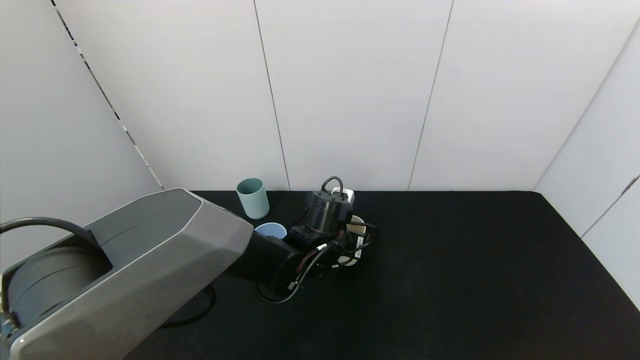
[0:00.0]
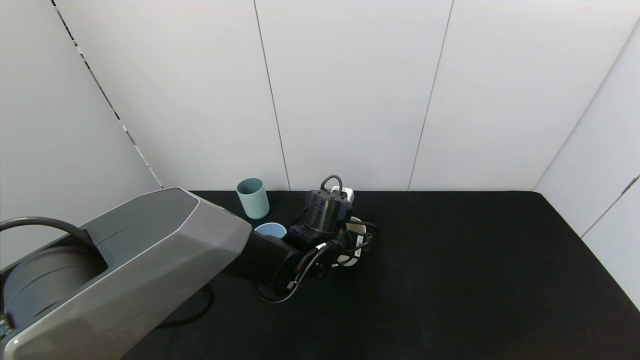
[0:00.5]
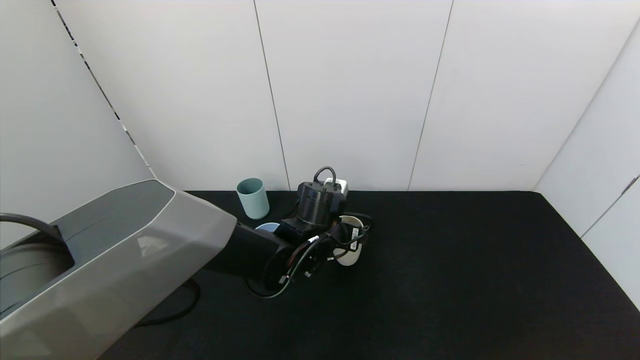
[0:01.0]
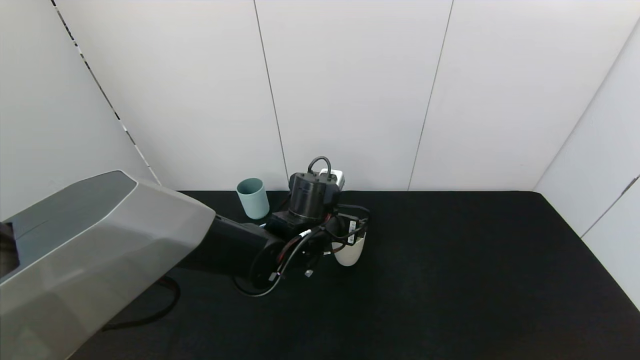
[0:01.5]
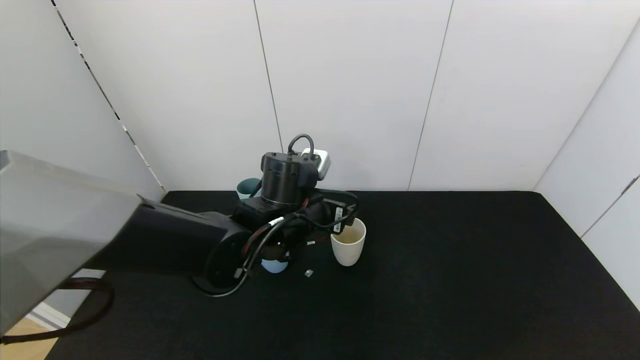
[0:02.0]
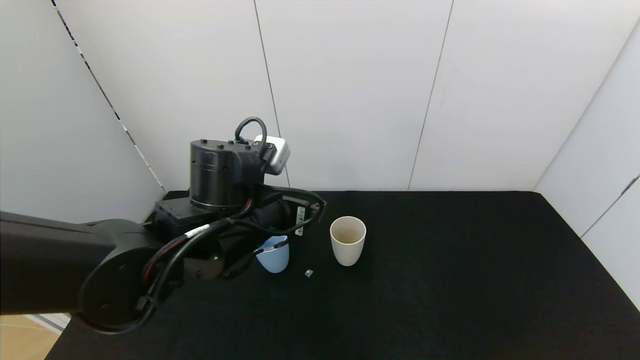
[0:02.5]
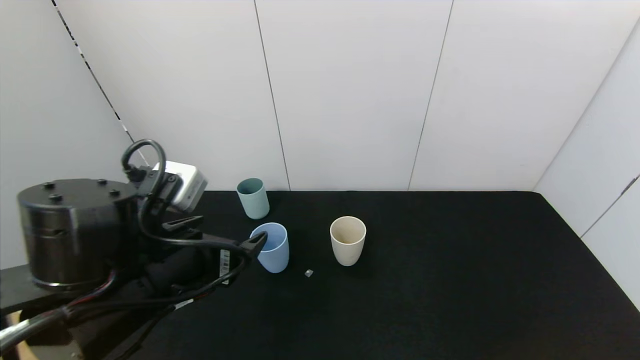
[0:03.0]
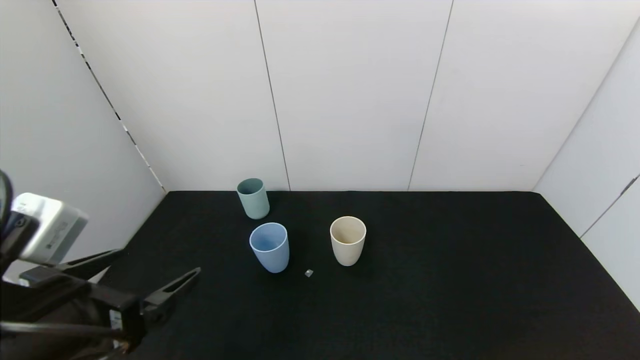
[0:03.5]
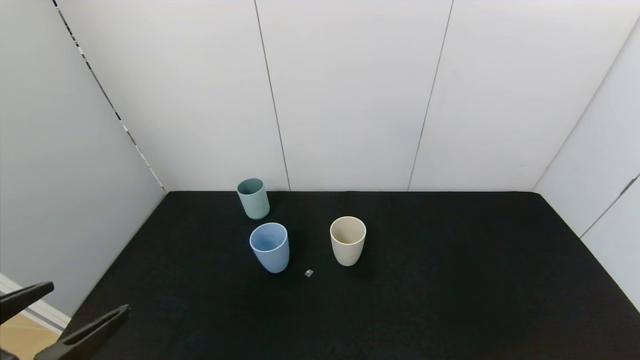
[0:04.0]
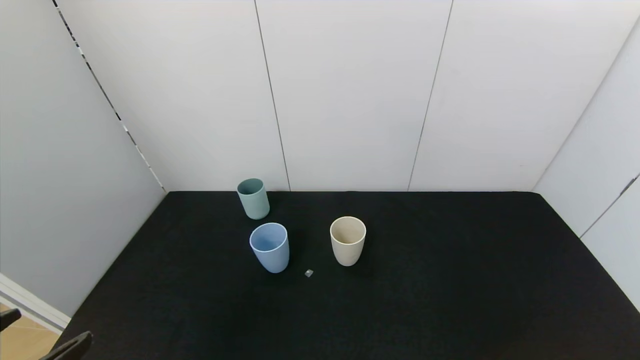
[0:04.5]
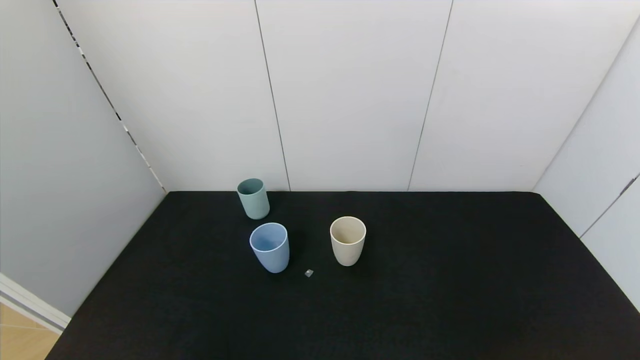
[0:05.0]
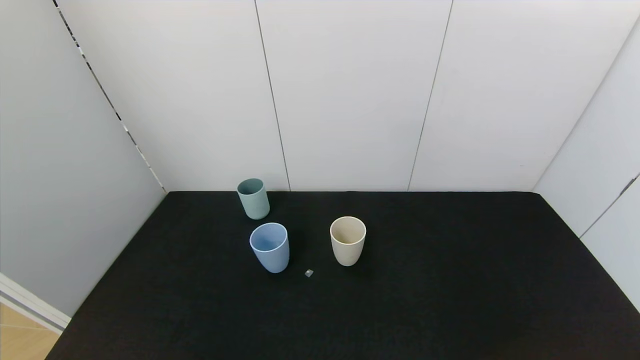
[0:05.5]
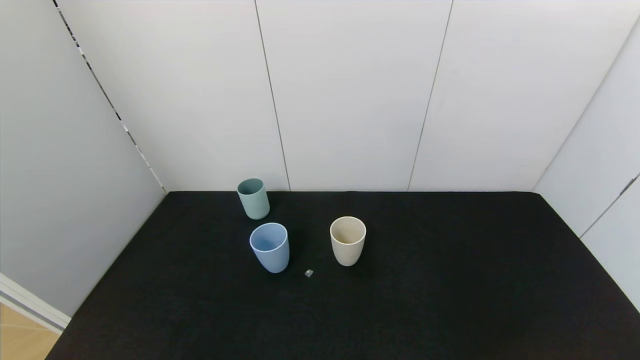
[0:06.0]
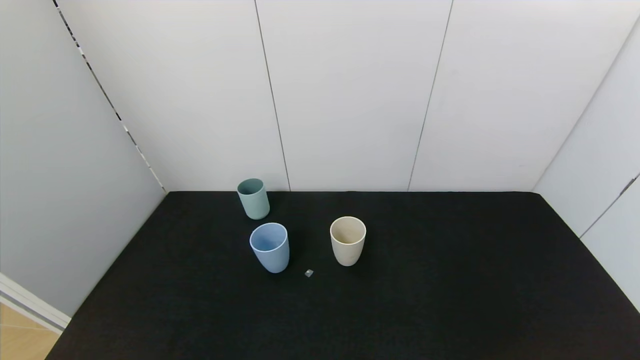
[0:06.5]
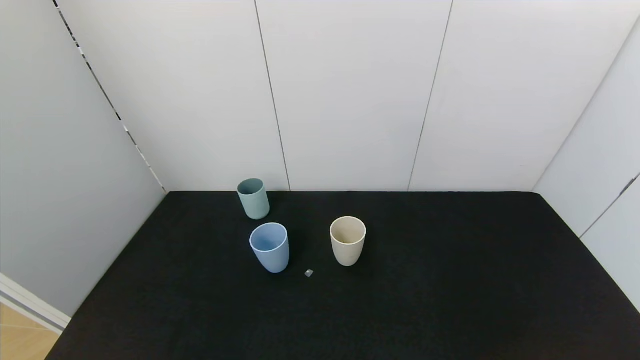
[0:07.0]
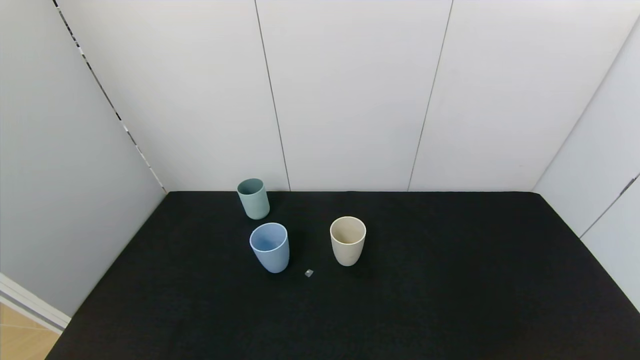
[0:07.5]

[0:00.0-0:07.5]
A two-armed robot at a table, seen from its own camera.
Task of the whole recording: use the gripper to pour the water into the other two cups on black table.
Step, 0:00.0 to 0:02.0: Place the white cup with the left gripper.
0:00.0 to 0:02.0: The left gripper moves upward, some 10 cm, and opens up.
0:02.0 to 0:04.0: The left gripper is displaced backward and to the left by some 35 cm.
0:04.0 to 0:05.5: The left gripper shifts about 15 cm backward and downward.
